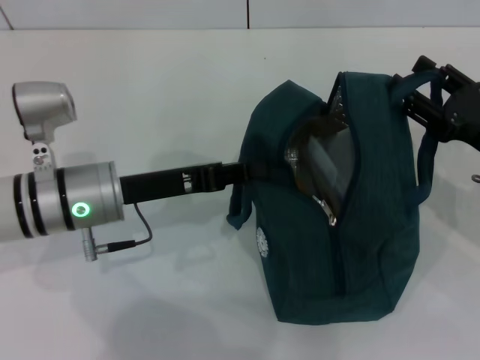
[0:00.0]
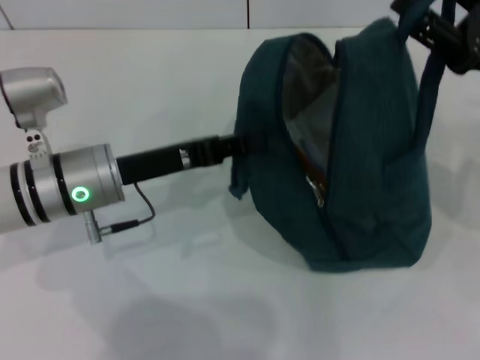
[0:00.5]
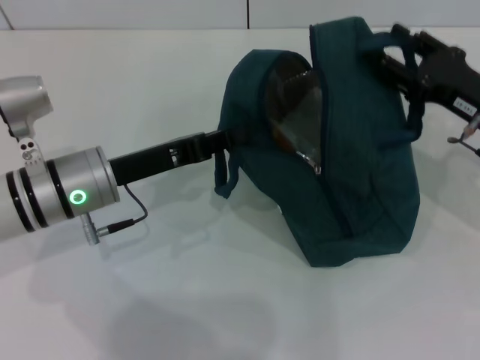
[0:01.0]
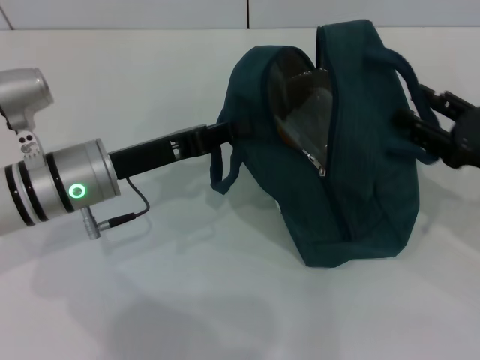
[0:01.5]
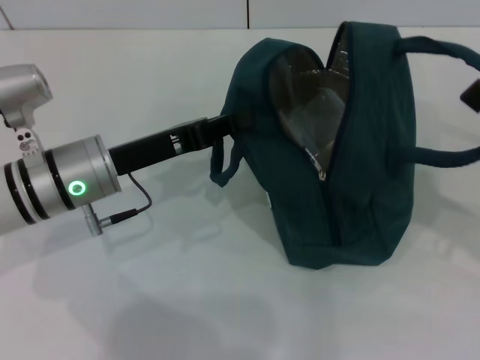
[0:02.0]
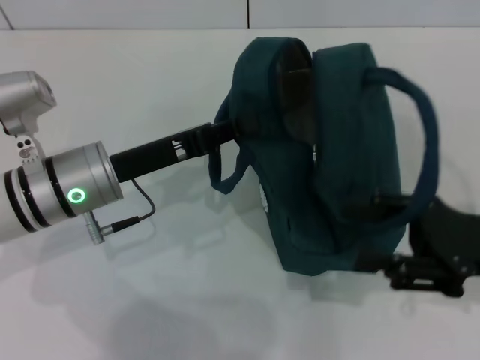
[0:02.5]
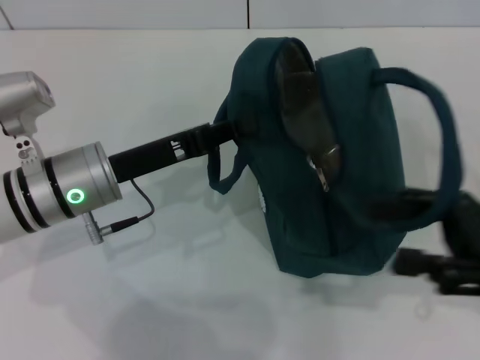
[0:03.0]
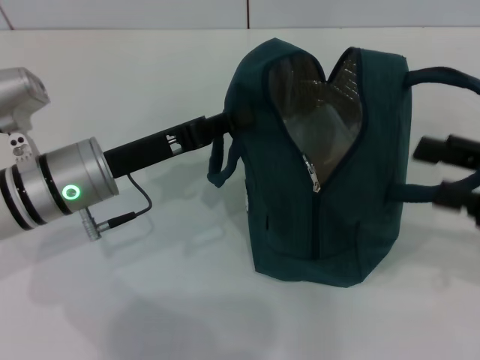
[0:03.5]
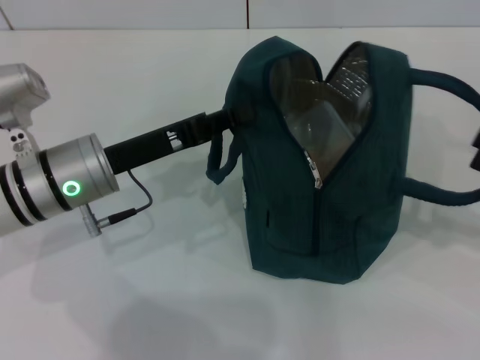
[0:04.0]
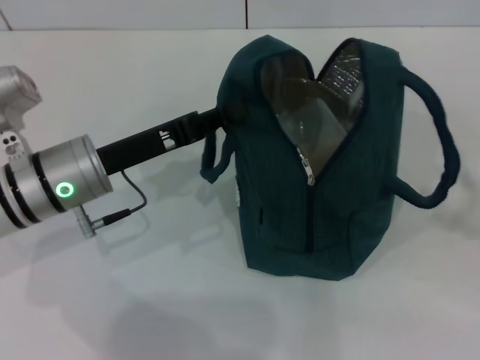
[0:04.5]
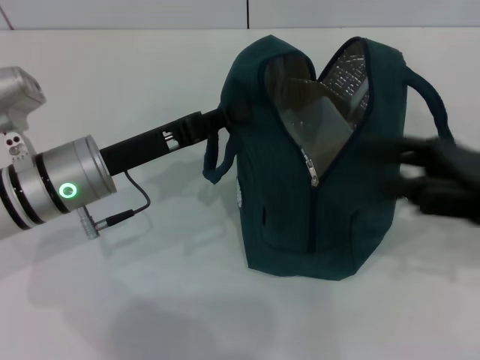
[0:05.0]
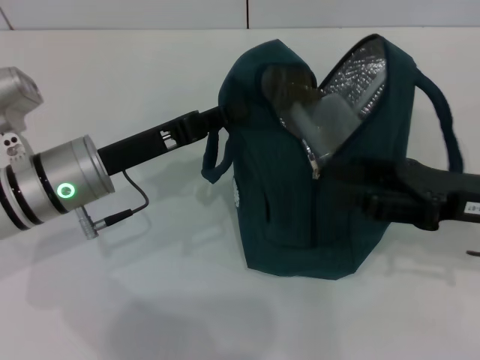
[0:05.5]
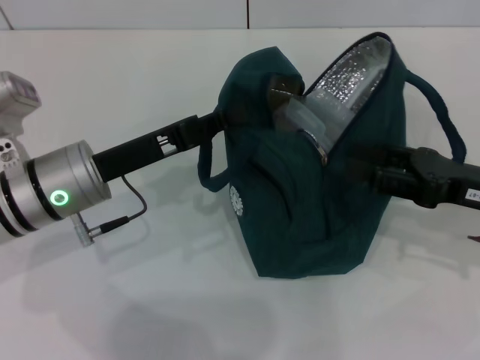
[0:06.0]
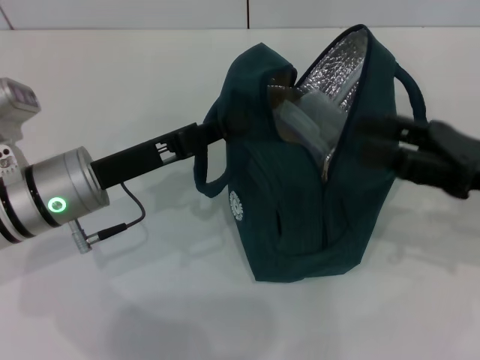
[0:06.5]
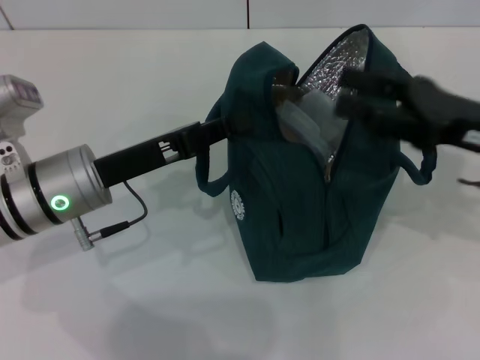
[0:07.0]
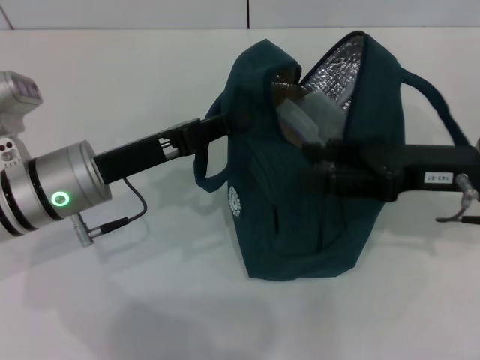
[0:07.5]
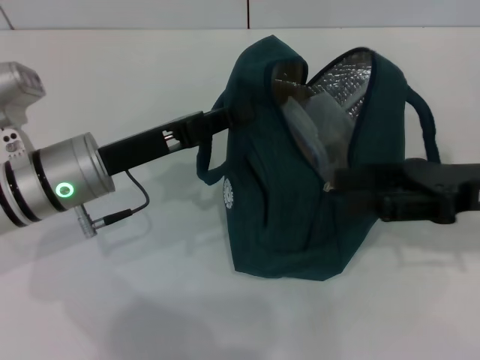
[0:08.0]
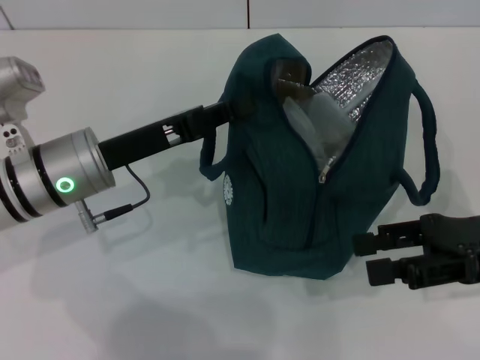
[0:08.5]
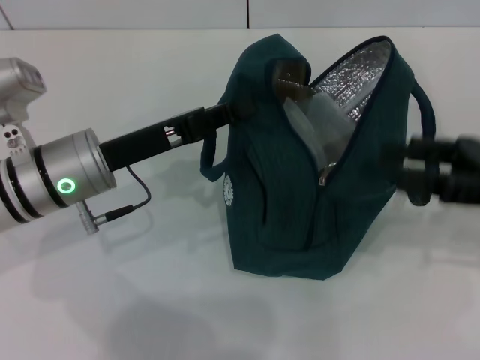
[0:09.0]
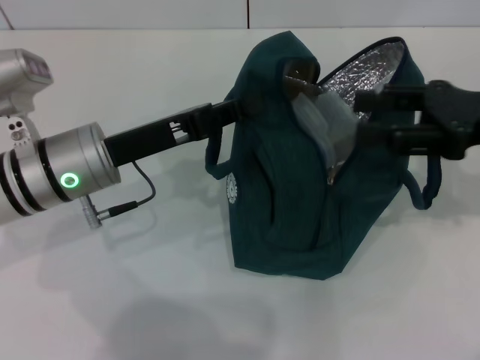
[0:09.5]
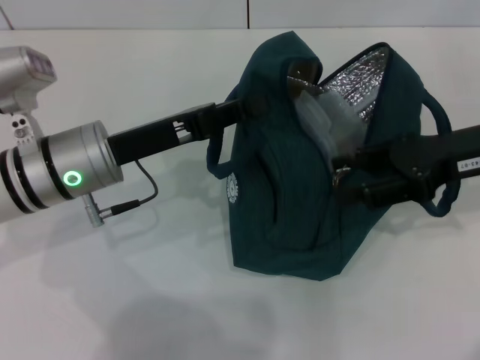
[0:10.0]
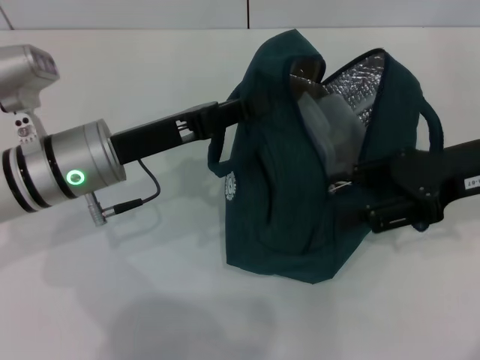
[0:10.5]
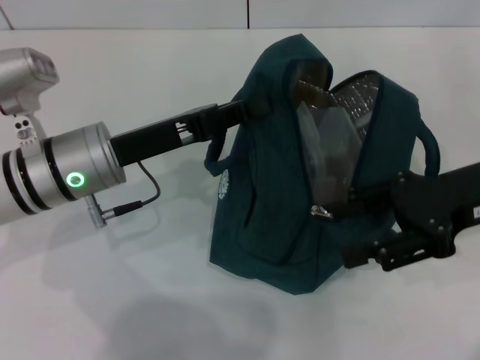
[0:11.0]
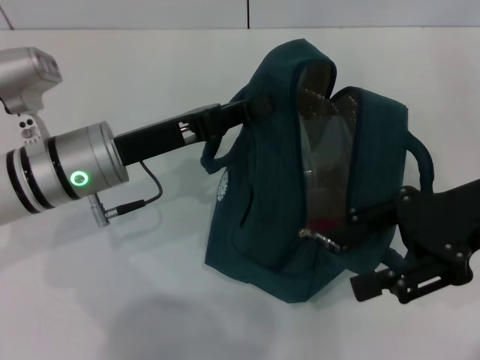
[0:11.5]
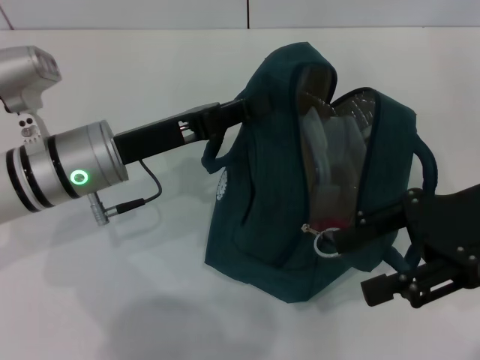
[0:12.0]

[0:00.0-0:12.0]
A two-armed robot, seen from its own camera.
Step, 0:00.0 to 0:02.0: Hold the lunch bag with your right hand.
0:00.0 to 0:02.0: The right gripper moves backward, about 5 cm.
0:04.0 to 0:06.0: The right gripper goes about 10 cm to the left.
0:06.0 to 0:08.0: The grippers make only small movements.
0:08.0 to 0:10.0: The grippers move only a little.

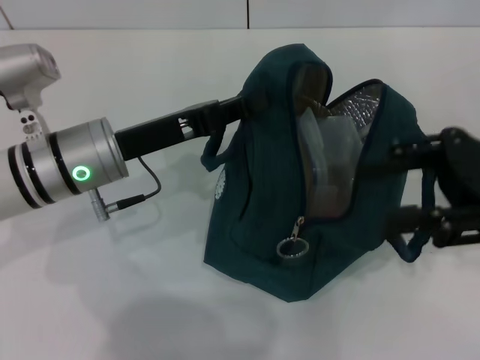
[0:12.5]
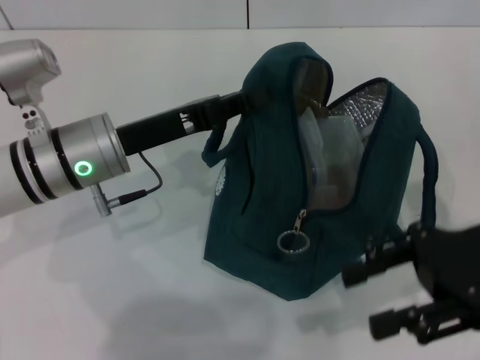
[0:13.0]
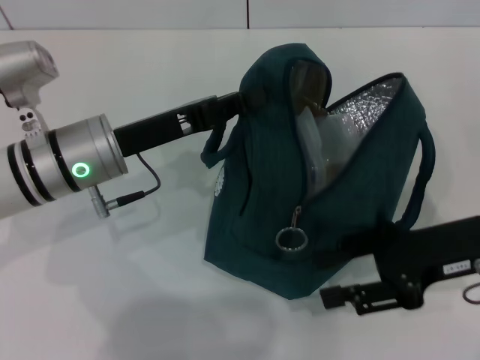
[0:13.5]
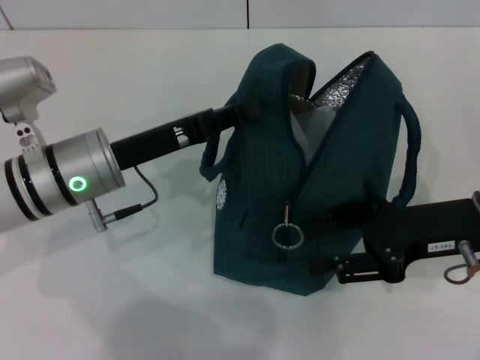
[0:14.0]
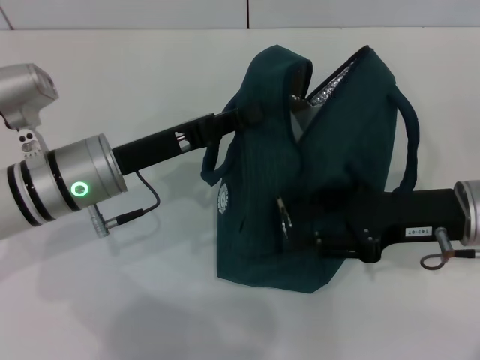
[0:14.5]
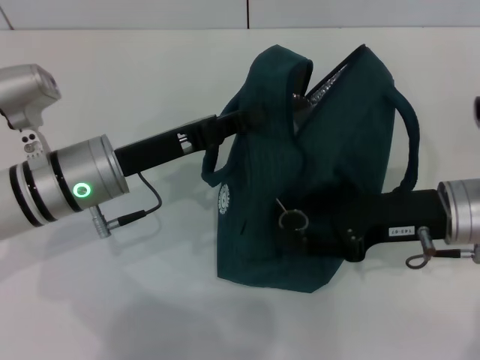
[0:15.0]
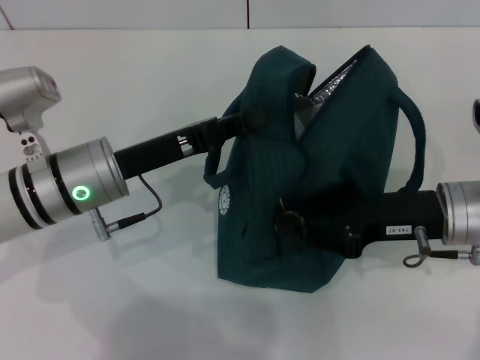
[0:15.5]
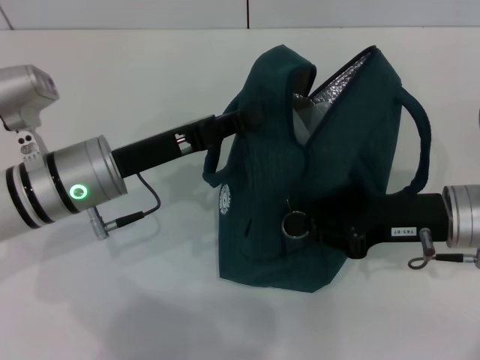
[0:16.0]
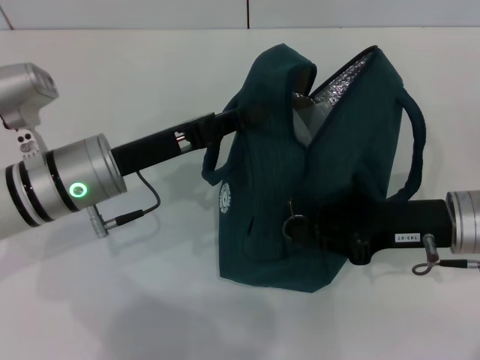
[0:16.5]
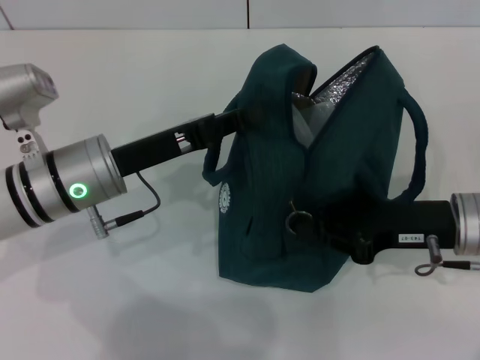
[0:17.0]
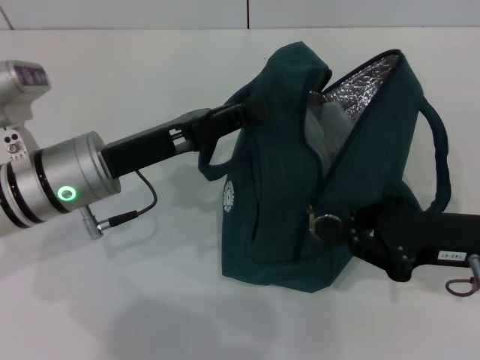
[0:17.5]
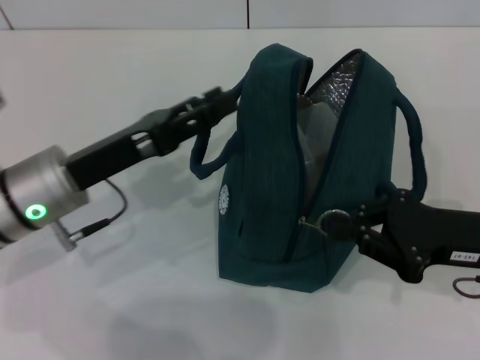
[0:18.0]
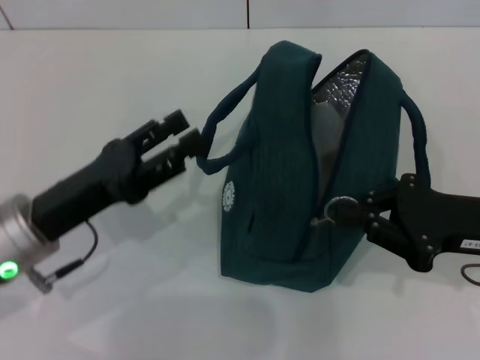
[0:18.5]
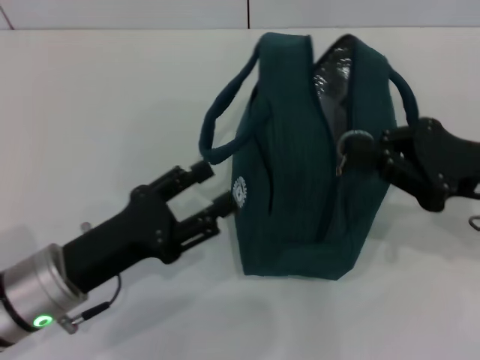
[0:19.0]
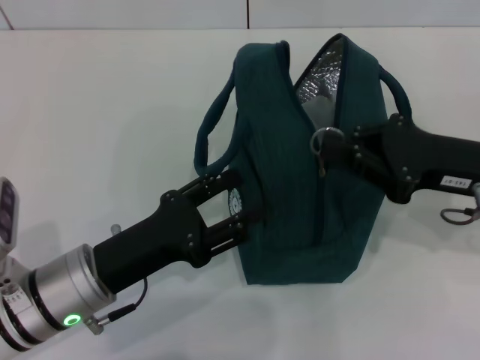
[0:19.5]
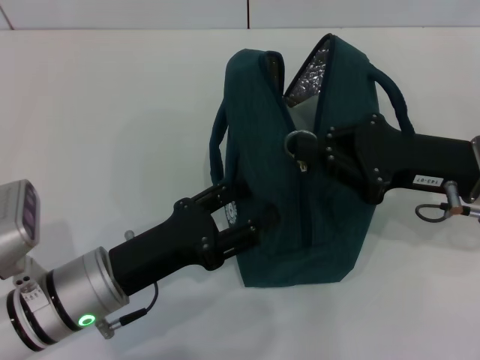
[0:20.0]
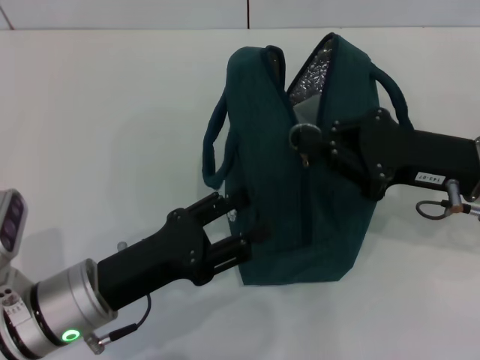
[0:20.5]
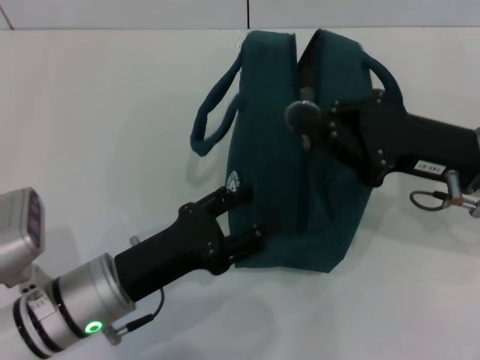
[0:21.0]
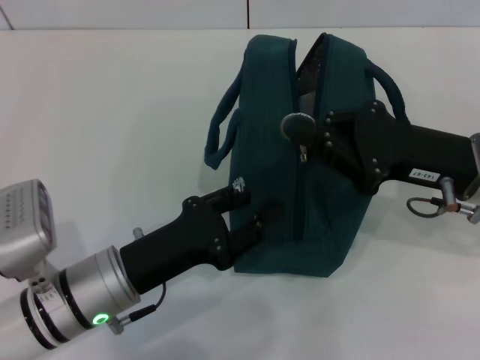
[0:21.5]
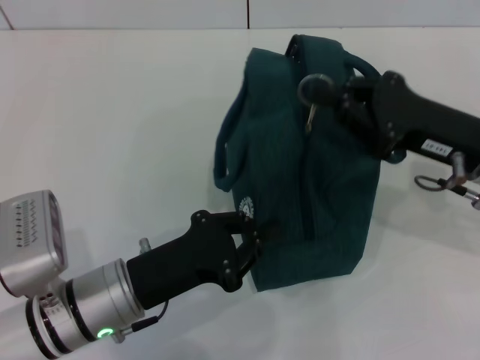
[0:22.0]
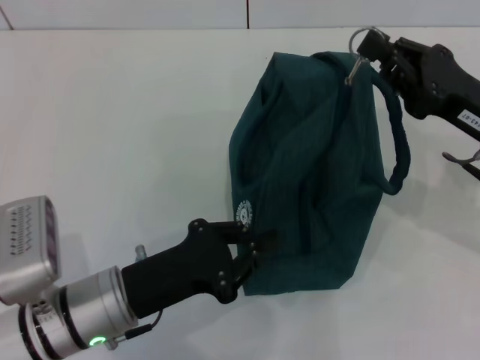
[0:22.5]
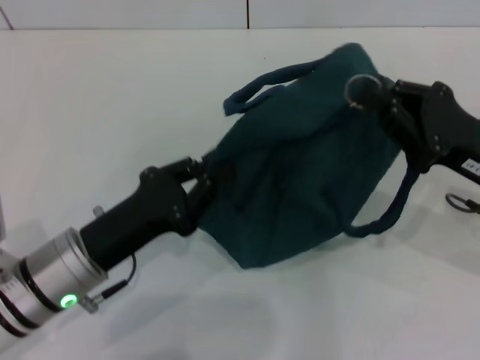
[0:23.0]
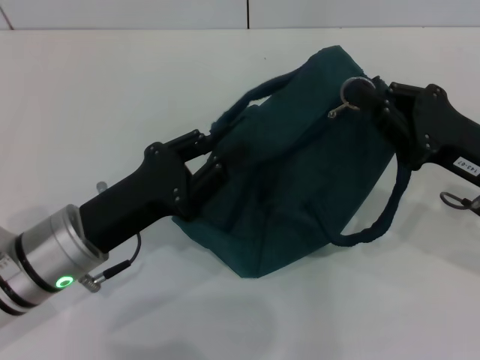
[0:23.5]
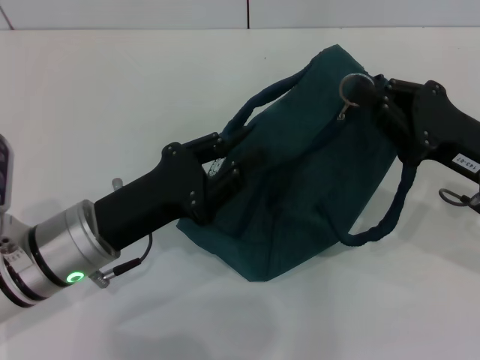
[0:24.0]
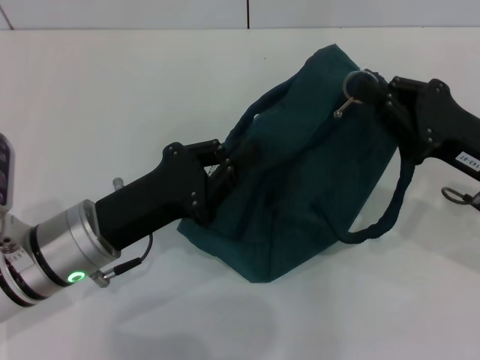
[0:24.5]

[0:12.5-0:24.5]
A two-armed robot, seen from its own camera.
Step, 0:12.5 to 0:18.0: Hold the lunch bag with your left hand.
0:12.5 to 0:14.5: The right gripper heads downward, covering roughly 10 cm.
0:14.5 to 0:16.5: The right gripper closes its fingers.
0:16.5 to 0:18.5: The left gripper is displaced backward and to the left by about 10 cm, and opens up; the right gripper ends up approximately 5 cm from where it was.
0:18.5 to 0:20.5: The right gripper moves some 5 cm. The left gripper moves about 5 cm.
0:20.5 to 0:22.5: The left gripper closes.
0:22.5 to 0:24.5: The left gripper changes place by about 5 cm.

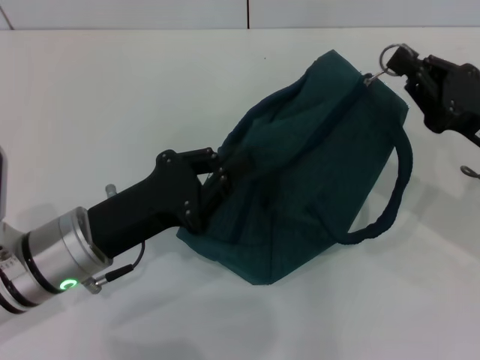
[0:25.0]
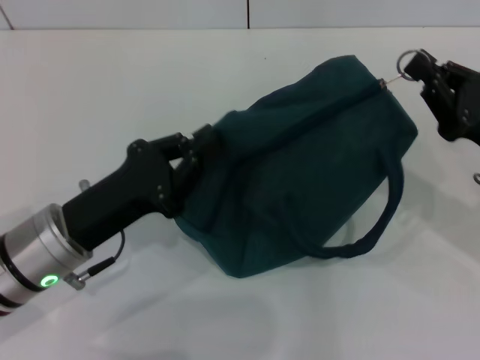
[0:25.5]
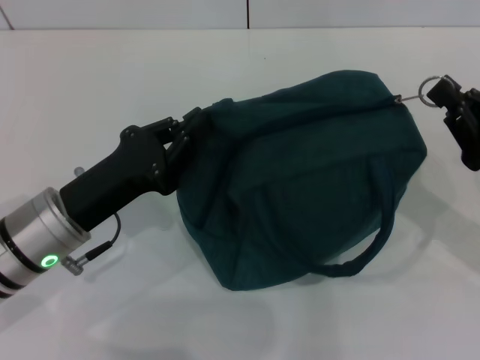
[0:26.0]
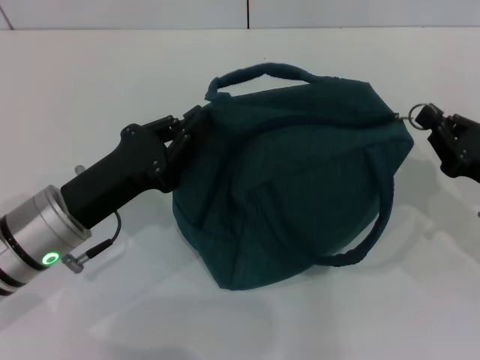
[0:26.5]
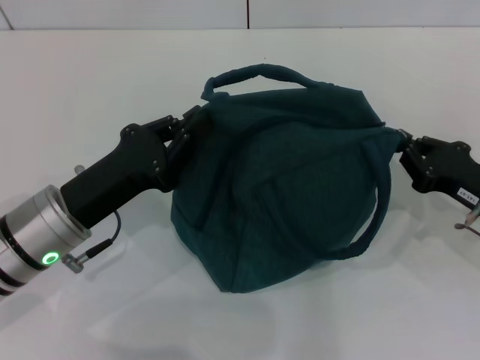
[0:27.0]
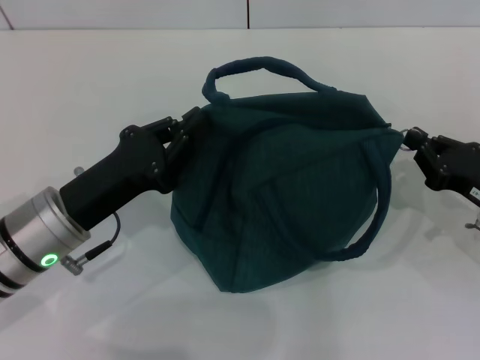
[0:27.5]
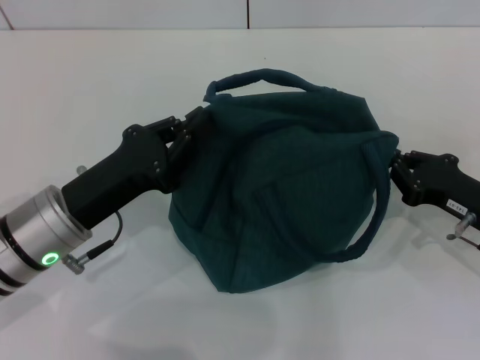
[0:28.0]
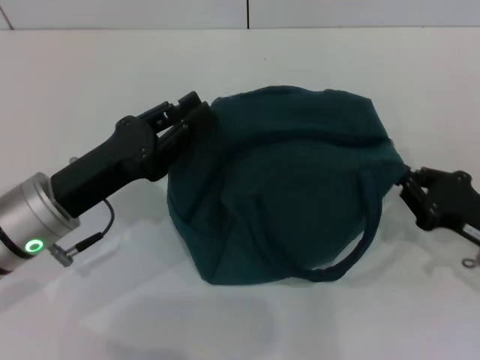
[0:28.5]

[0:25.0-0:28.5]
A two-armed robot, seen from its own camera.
0:25.0 to 0:27.0: The right gripper is displaced downward by some 5 cm.
0:27.0 to 0:28.5: The grippers move only a little.
